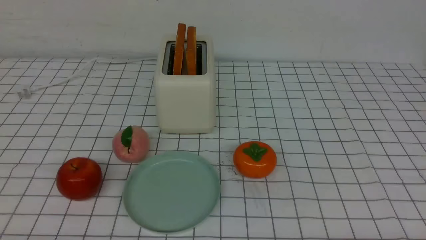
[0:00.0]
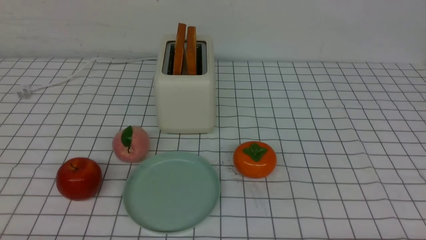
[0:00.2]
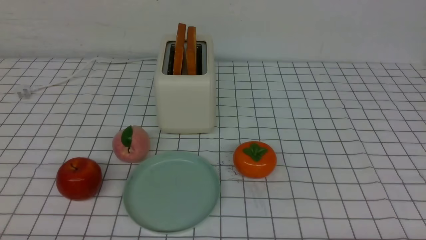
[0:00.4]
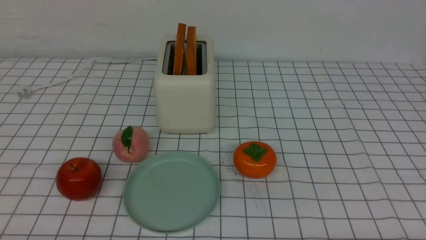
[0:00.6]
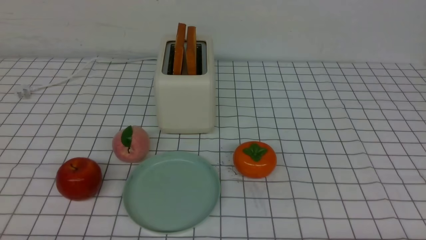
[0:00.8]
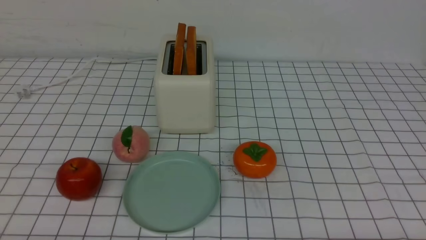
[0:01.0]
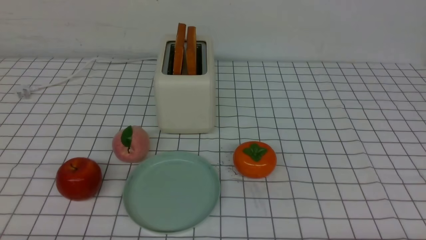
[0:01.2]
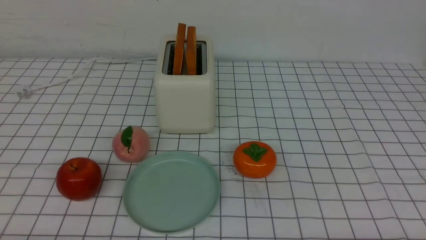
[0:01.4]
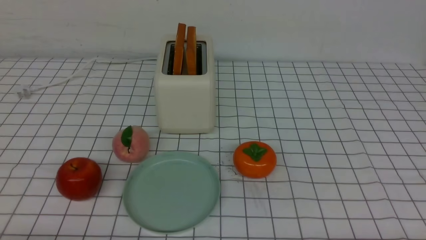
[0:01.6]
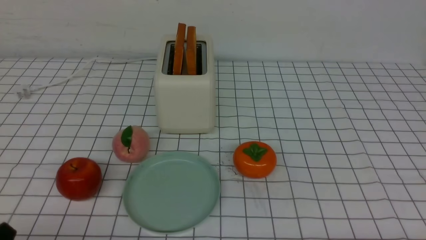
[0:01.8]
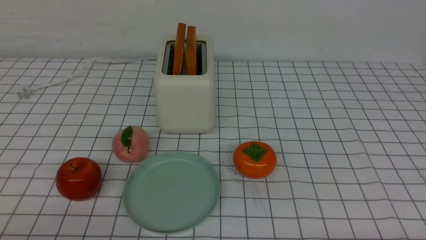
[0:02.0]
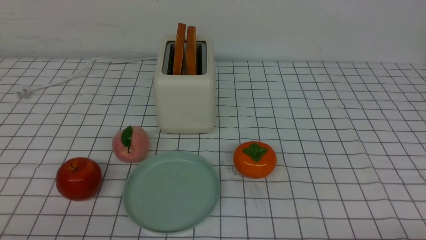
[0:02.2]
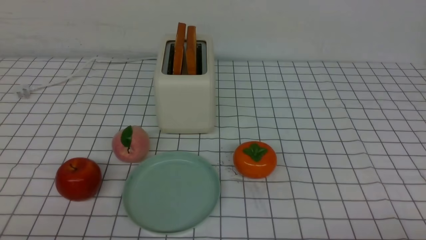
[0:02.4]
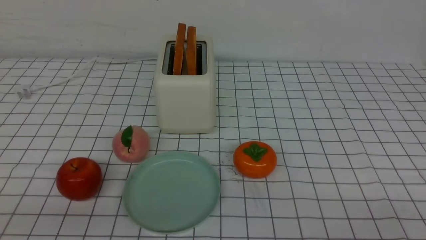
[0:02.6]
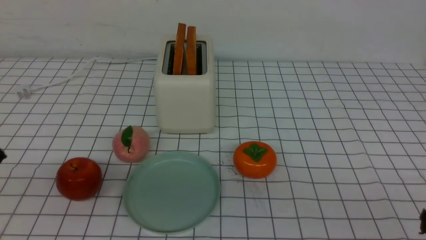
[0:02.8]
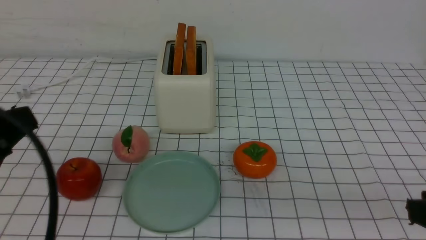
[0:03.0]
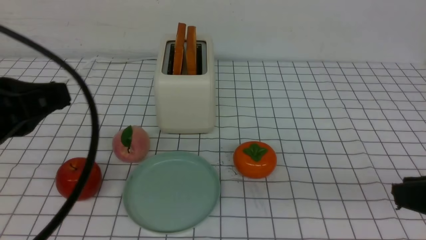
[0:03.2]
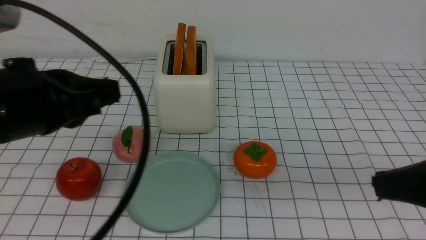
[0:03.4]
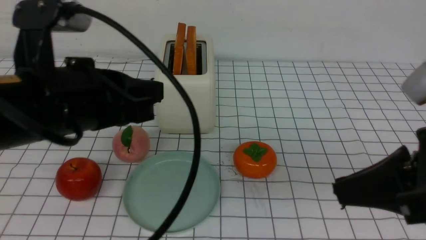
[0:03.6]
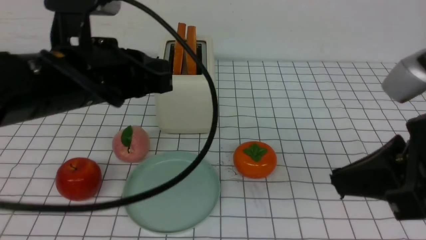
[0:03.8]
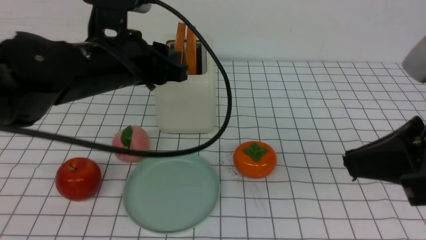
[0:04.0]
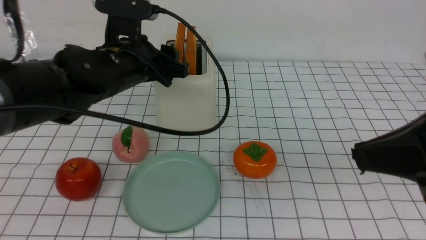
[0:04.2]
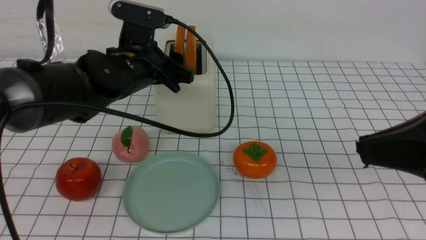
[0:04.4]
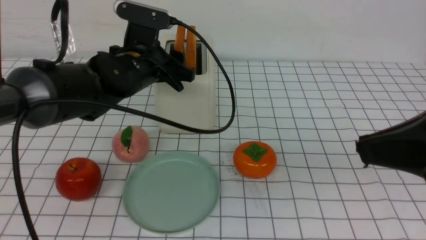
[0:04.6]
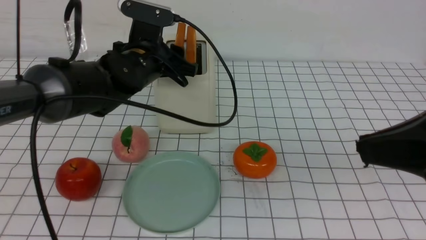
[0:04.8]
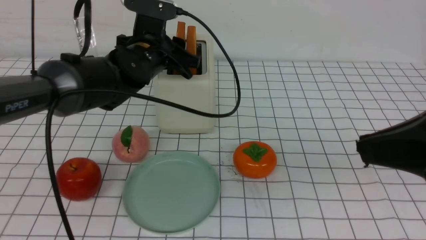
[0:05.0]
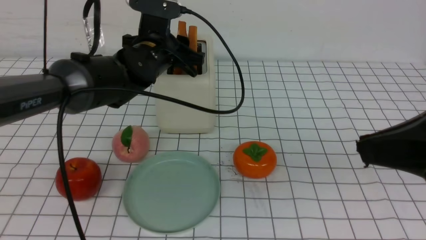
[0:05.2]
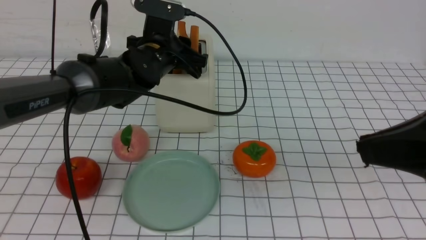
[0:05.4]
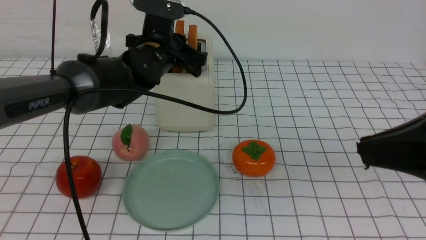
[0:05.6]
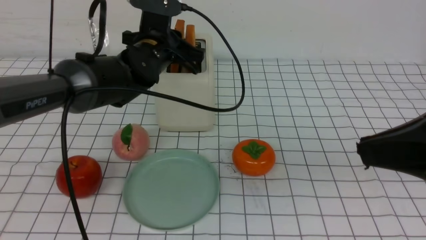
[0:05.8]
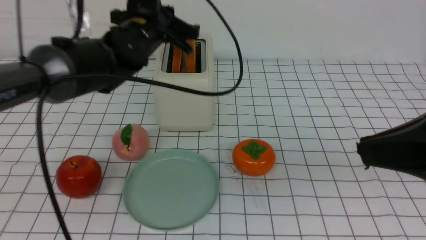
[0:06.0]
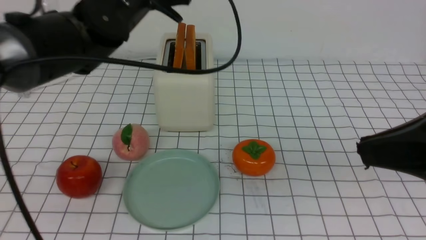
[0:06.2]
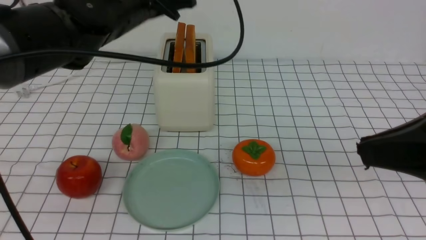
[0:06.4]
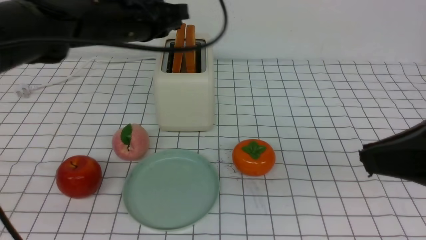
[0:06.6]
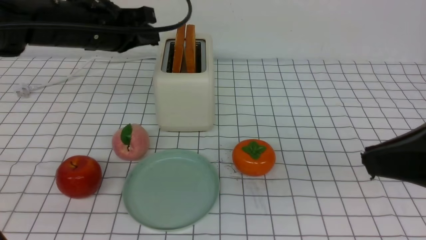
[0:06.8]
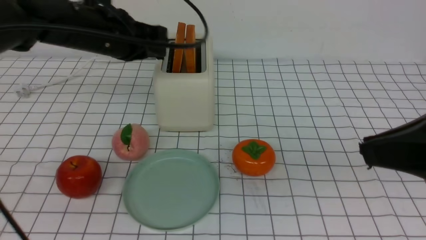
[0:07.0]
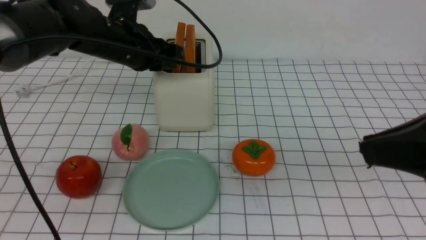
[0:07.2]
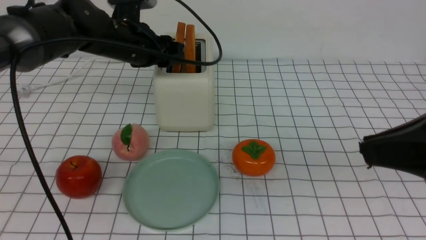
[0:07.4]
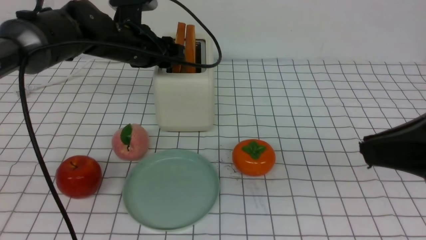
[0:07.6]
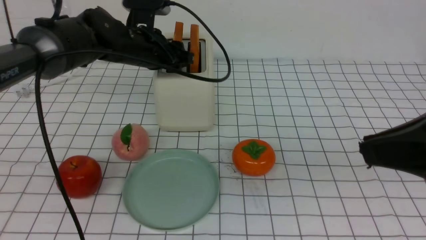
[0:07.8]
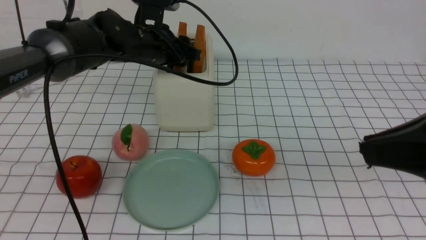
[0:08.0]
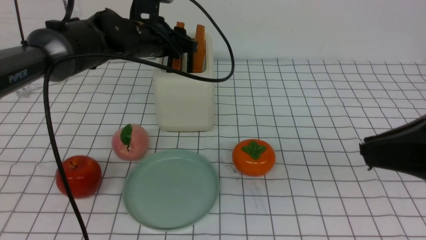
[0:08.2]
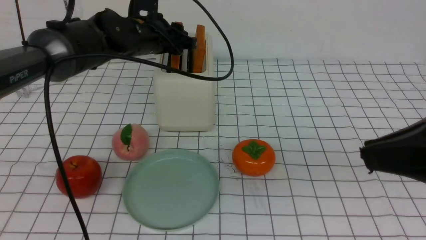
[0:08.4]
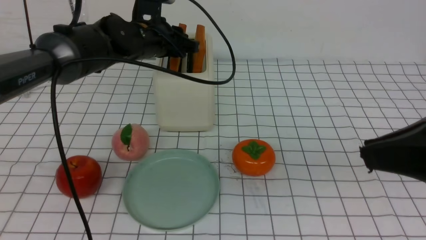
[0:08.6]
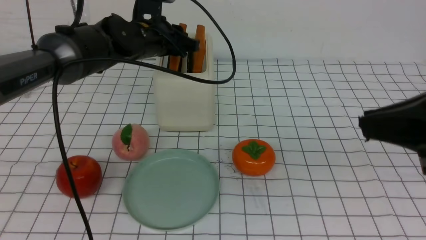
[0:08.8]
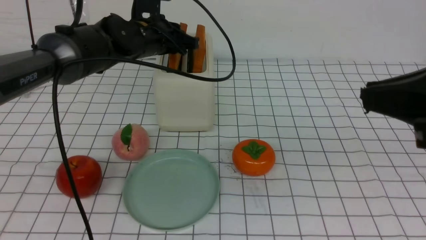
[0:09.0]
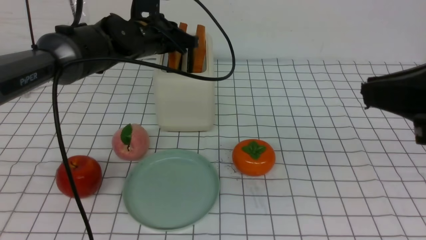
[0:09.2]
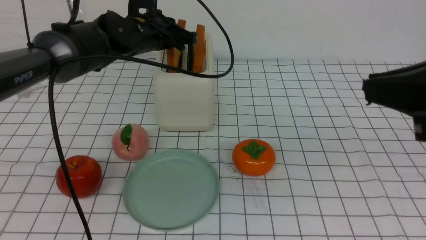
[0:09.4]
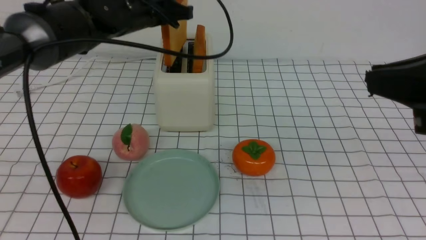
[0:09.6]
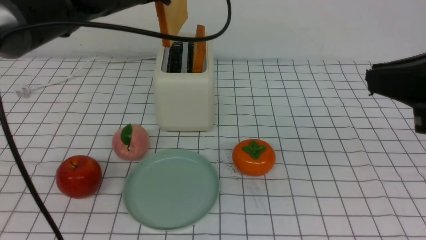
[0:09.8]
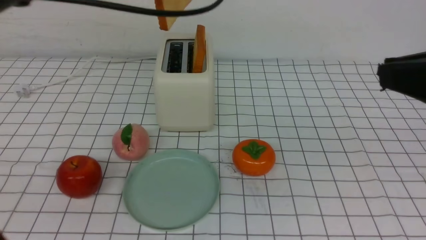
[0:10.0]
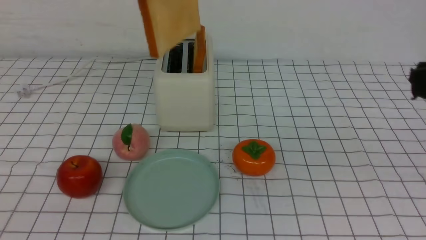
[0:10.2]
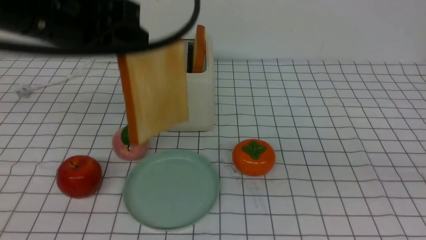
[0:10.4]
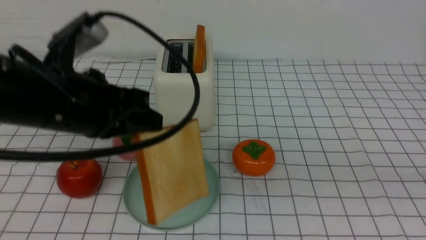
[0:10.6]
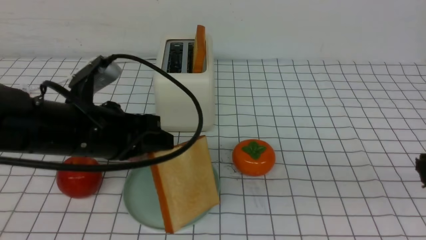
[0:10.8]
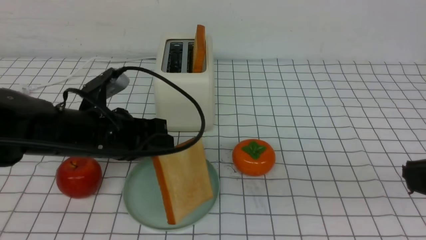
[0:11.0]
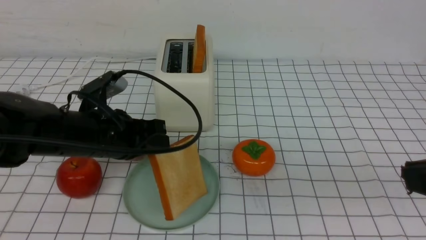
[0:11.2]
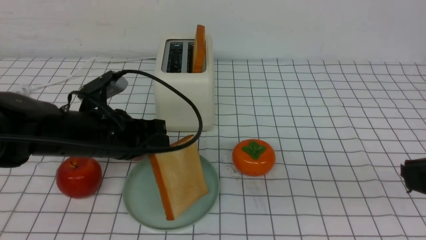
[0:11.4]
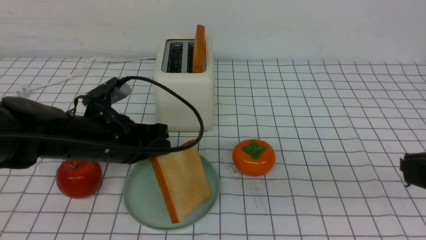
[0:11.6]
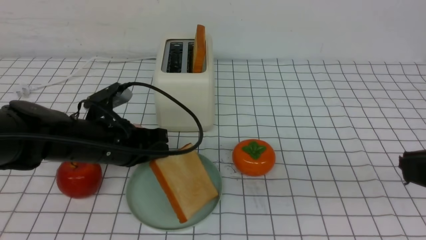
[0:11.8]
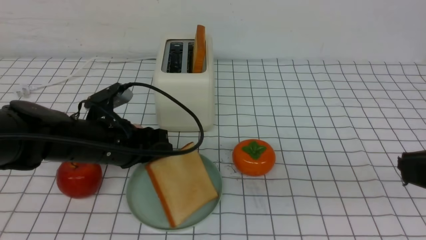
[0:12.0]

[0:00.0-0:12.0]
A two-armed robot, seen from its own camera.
Task of the whole recording: take toasted bread from bread machine on white checkered table place on plate.
Step, 0:00.0 to 0:09.6: use the left arm to take out a slice of bread.
0:01.6 to 0:03.0: The left gripper heads upward and forward, covering roughly 20 cm, and closes its fingers.
0:03.0 to 0:04.4: The left gripper shifts some 30 cm forward and to the right, and opens its fingers, while the right gripper is displaced upward and to the left by approximately 10 cm, and closes its fingers.
0:04.4 to 0:06.0: The left gripper shifts by some 5 cm, and closes up.
0:06.0 to 0:07.6: The left gripper changes place by approximately 5 cm, and opens its fingers.
0:07.6 to 0:09.0: The left gripper closes up.
0:09.0 to 0:10.4: The left gripper goes approximately 20 cm backward and upward; the right gripper travels backward by roughly 5 cm.
0:10.4 to 0:12.0: The left gripper moves downward, about 20 cm, and opens its fingers.

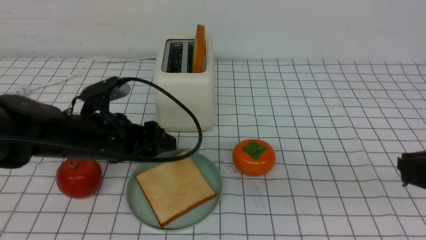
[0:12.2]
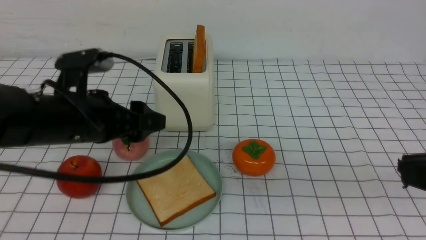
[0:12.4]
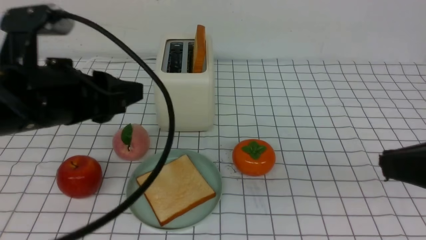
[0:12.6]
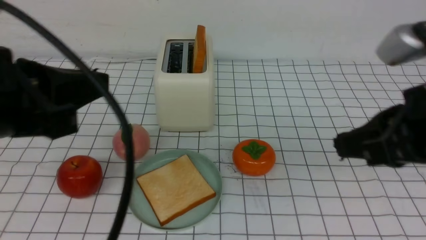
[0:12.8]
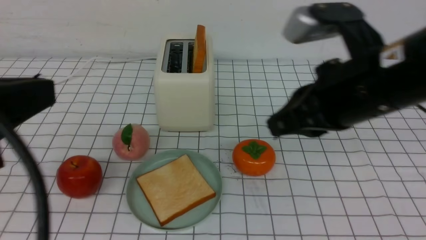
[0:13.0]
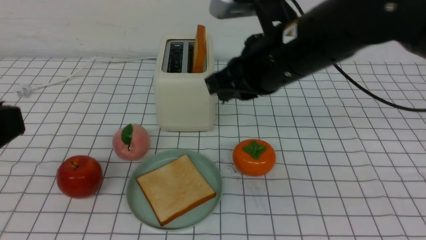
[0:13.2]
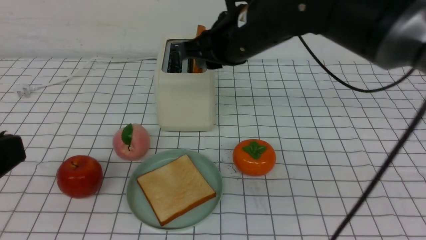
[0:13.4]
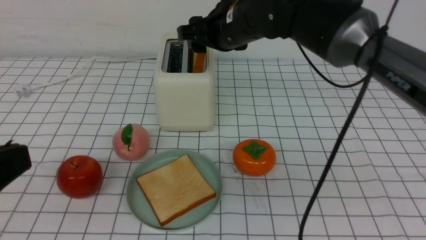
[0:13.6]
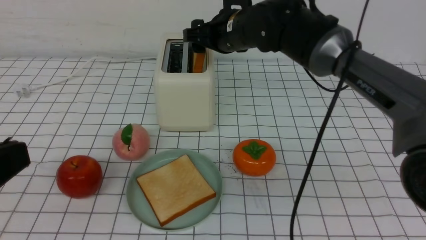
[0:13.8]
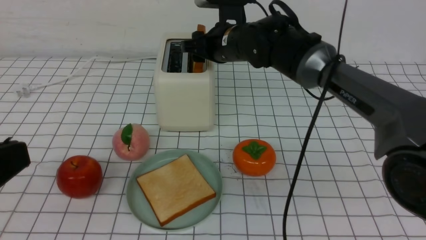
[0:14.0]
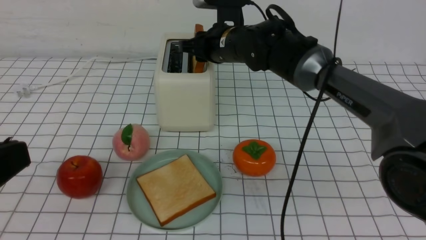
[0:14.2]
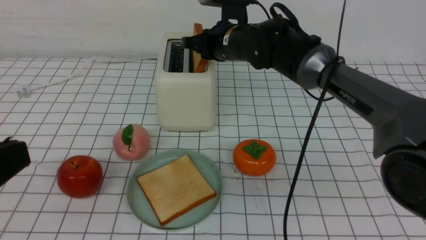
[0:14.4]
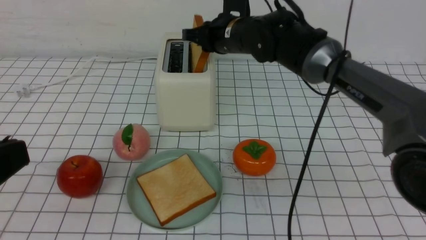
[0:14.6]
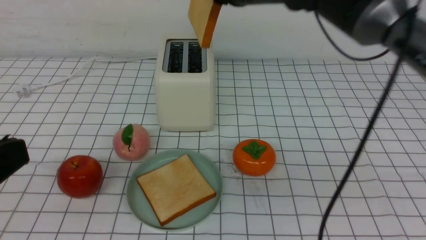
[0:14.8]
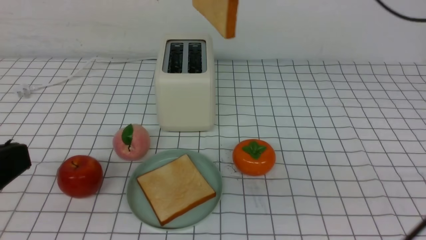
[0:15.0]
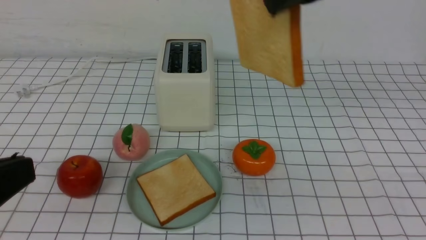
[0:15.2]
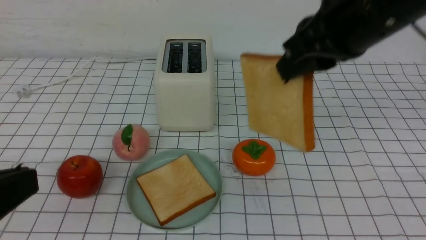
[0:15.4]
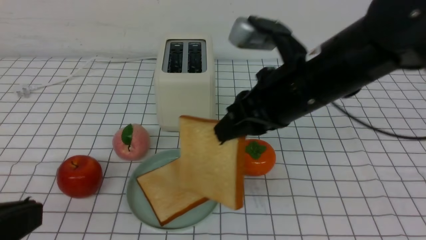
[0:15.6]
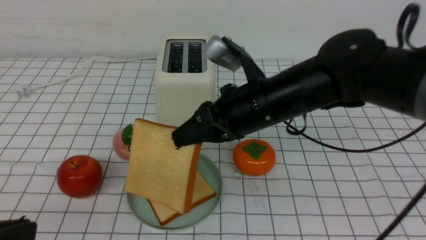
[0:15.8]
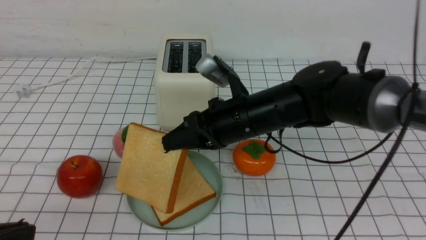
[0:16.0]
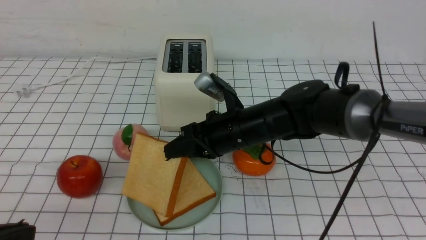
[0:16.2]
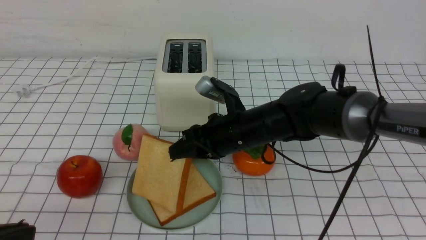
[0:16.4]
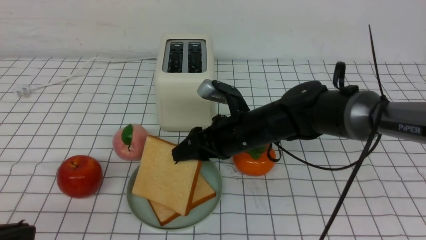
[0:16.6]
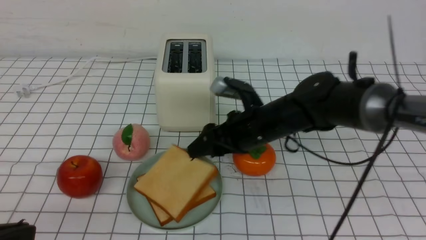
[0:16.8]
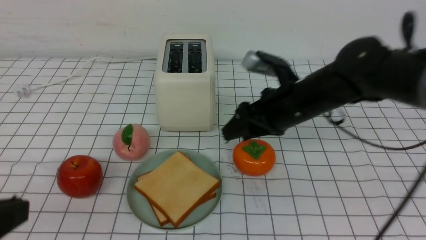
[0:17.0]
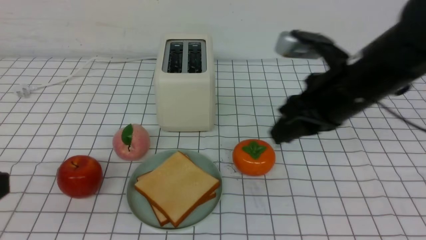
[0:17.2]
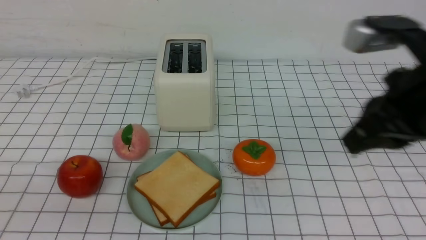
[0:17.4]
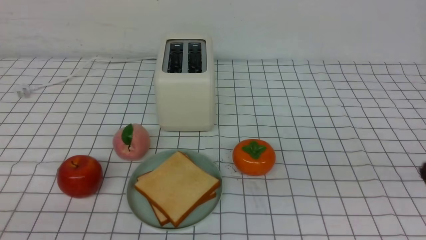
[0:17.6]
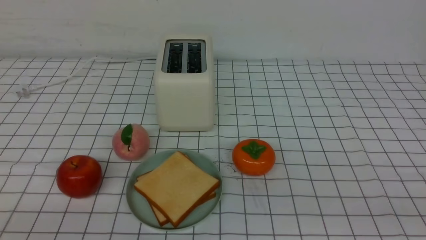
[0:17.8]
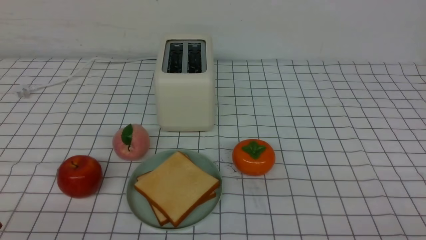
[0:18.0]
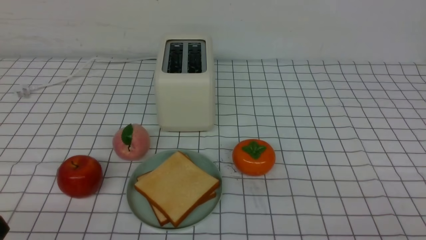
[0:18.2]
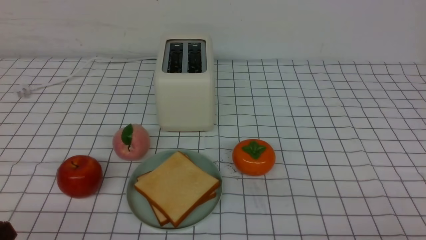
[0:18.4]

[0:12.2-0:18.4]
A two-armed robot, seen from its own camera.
Task of the whole recording: take toasted bread from bread machine on white checkered table place on plate.
Step, 0:12.4 to 0:14.6: use the right arm to take out a slice of bread.
Step, 0:14.8 to 0:17.0: use the right arm to put a slice of bread into the plate.
0:12.2 to 0:13.8: The left gripper goes approximately 25 cm backward and upward, and closes its fingers; the right gripper shifts approximately 40 cm forward and to the left, and opens its fingers.
0:13.8 to 0:15.4: The right gripper heads backward, upward and to the right, covering approximately 20 cm, and closes up.
0:15.4 to 0:16.8: The right gripper heads downward and forward, covering about 20 cm, and opens up.
0:16.8 to 0:18.4: The right gripper moves backward and to the right, about 35 cm, and closes its fingers, while the left gripper travels downward by some 10 cm.
